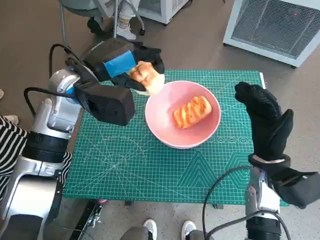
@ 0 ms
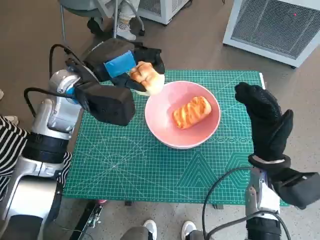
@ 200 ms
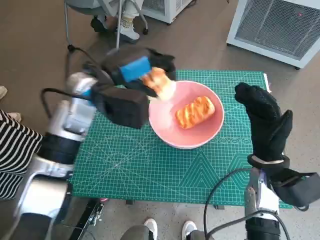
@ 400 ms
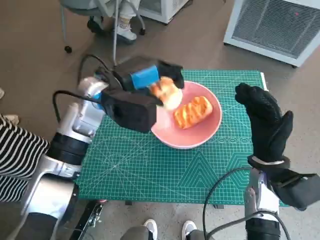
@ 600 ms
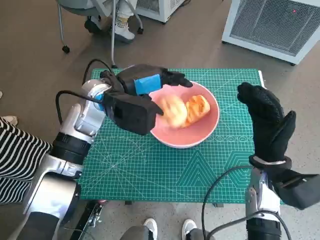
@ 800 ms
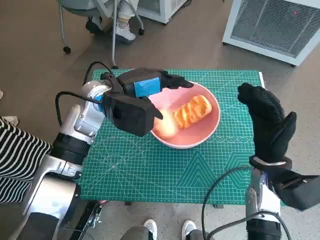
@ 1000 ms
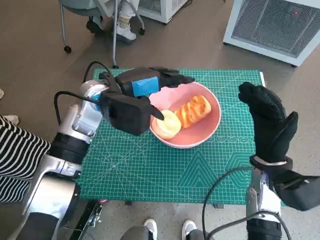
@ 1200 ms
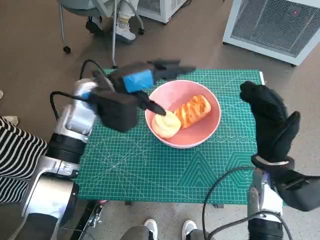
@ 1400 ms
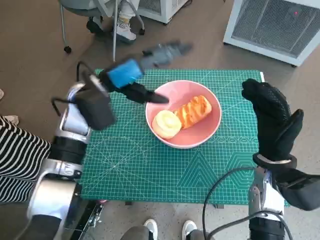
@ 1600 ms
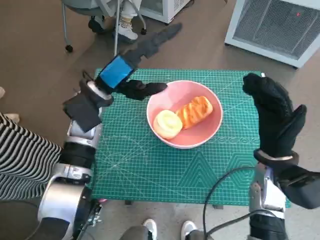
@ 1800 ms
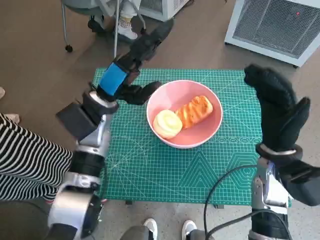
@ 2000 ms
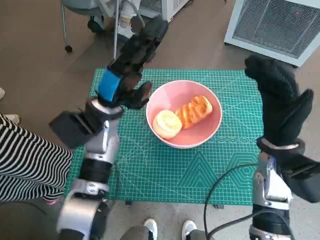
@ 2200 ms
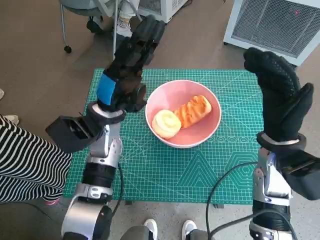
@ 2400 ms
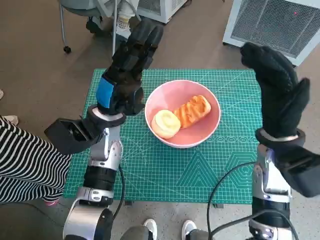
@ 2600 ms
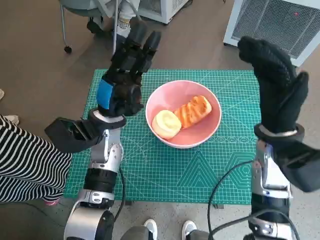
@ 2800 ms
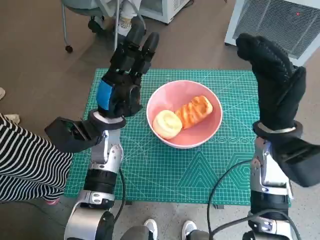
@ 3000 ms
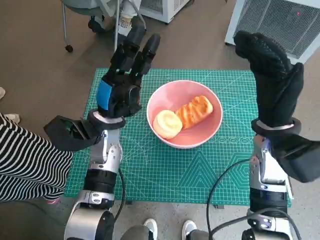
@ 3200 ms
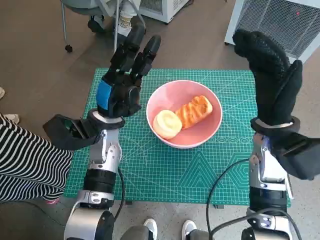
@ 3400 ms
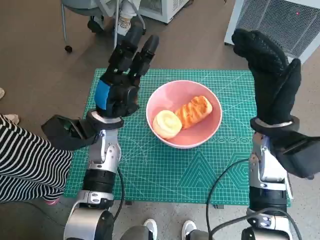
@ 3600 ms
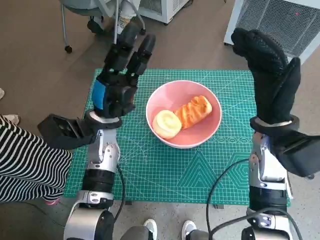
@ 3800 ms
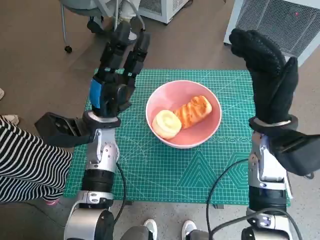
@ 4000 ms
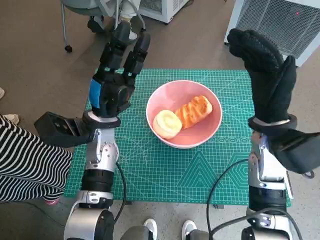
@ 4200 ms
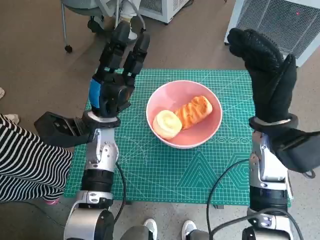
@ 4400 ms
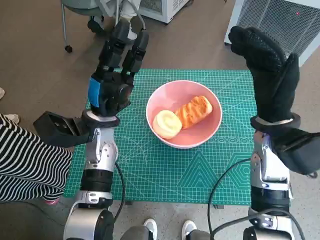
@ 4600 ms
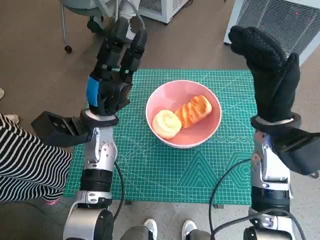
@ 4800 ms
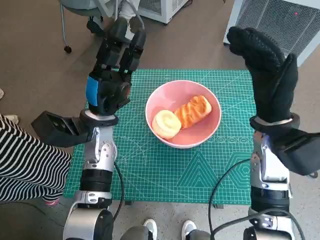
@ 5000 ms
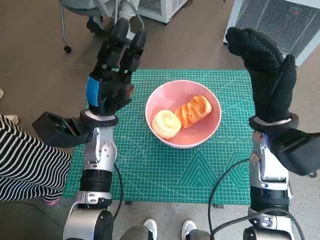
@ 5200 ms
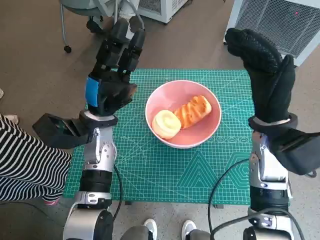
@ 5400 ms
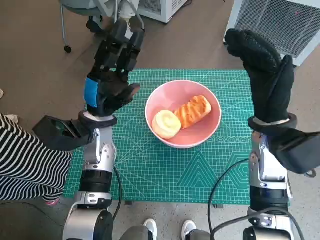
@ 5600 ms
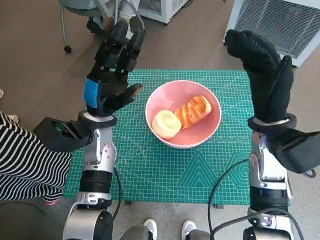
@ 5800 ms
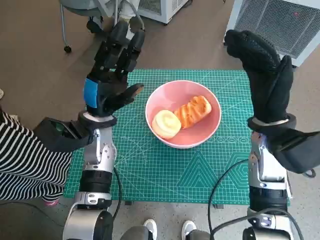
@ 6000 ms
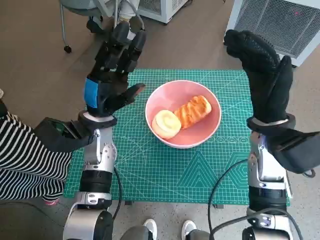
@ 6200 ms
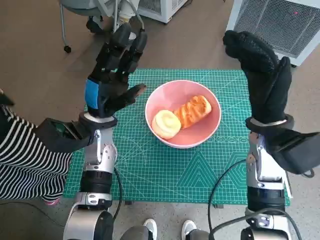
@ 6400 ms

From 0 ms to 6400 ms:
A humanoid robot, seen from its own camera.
Task of the whole recording: Push the bowl into the center of the table and put the bread into the bowl.
From 1600 ms to 3200 ms: The left hand travels downward by roughly 10 cm; the right hand goes about 5 cm upward.
From 3200 ms to 6400 ms: The hands move only a little.

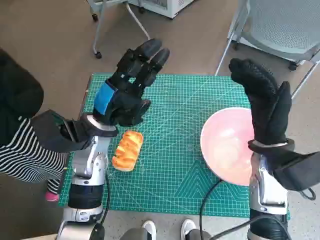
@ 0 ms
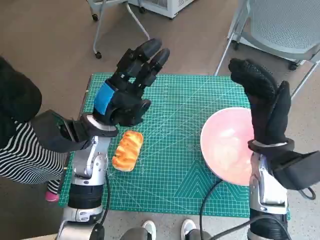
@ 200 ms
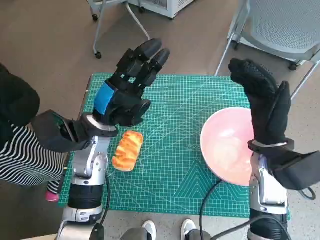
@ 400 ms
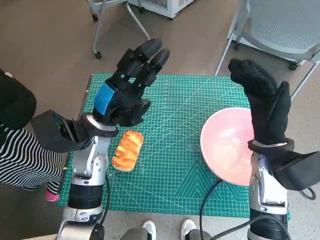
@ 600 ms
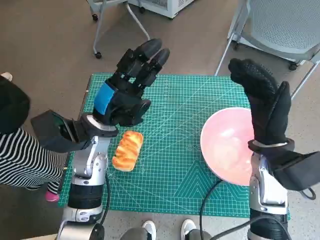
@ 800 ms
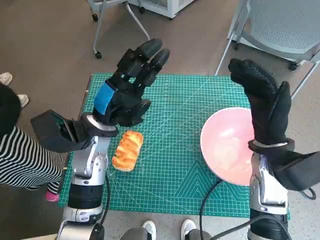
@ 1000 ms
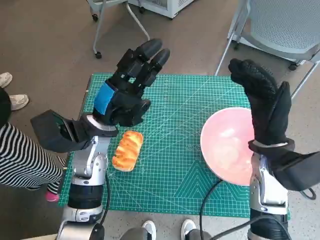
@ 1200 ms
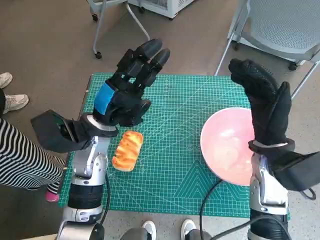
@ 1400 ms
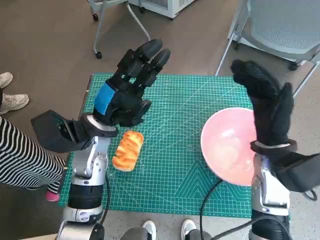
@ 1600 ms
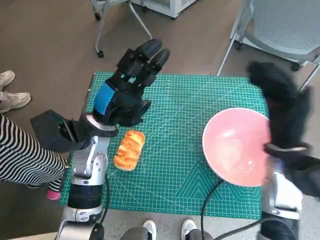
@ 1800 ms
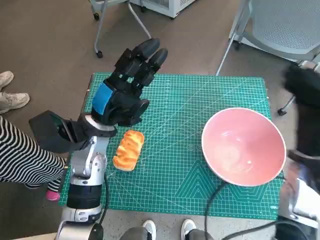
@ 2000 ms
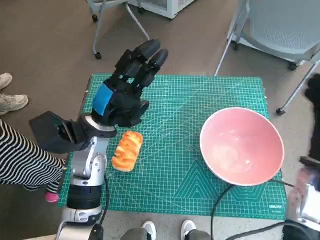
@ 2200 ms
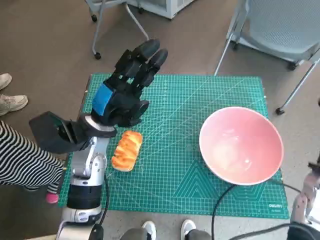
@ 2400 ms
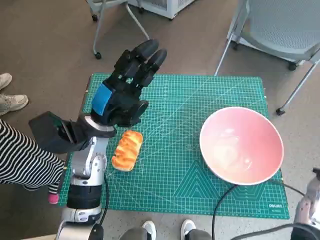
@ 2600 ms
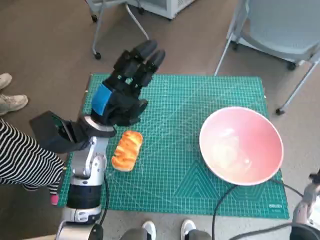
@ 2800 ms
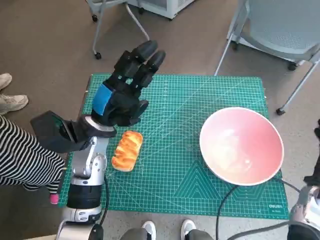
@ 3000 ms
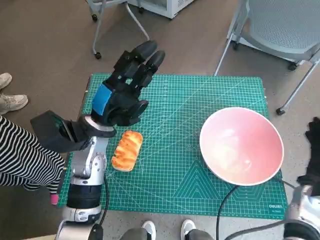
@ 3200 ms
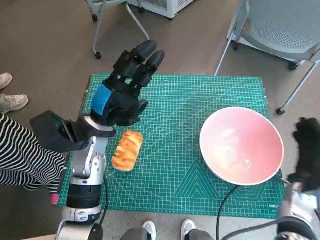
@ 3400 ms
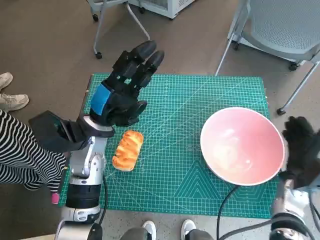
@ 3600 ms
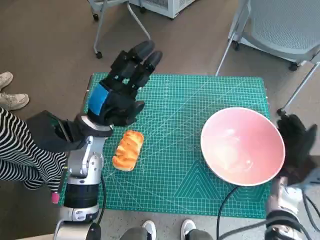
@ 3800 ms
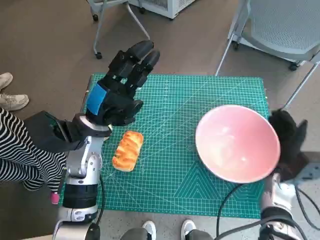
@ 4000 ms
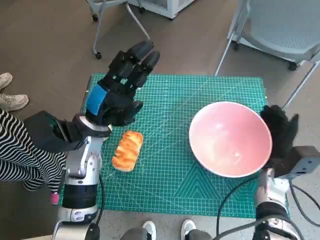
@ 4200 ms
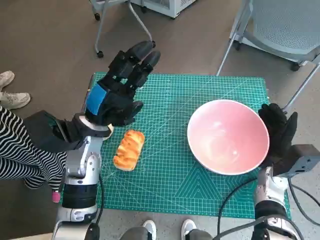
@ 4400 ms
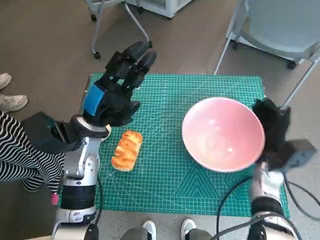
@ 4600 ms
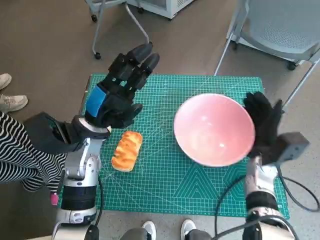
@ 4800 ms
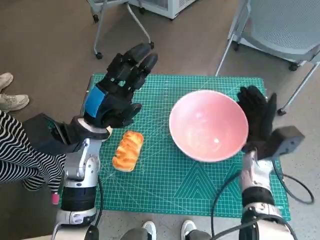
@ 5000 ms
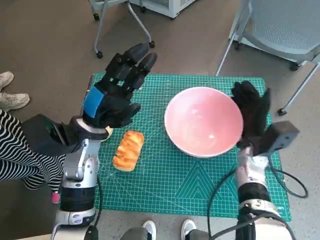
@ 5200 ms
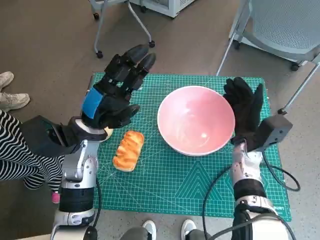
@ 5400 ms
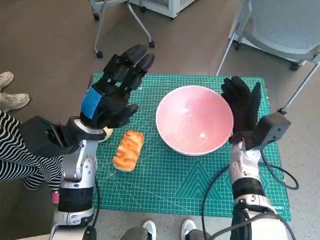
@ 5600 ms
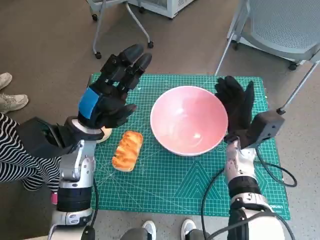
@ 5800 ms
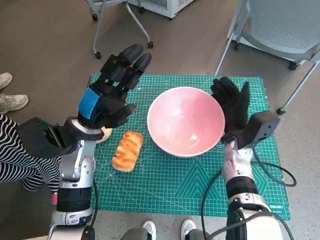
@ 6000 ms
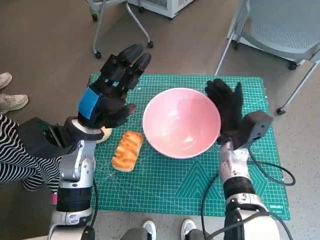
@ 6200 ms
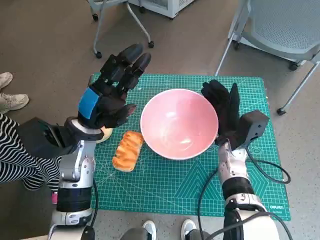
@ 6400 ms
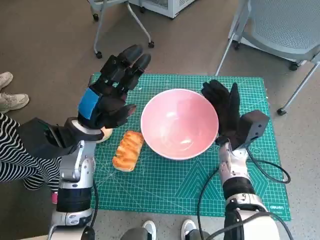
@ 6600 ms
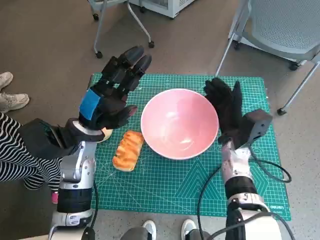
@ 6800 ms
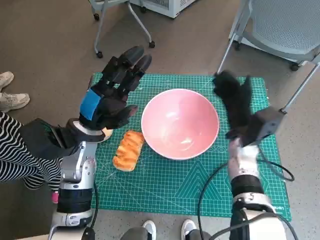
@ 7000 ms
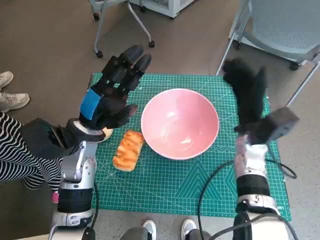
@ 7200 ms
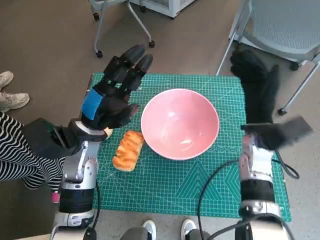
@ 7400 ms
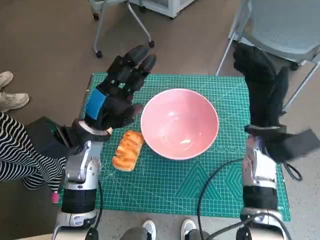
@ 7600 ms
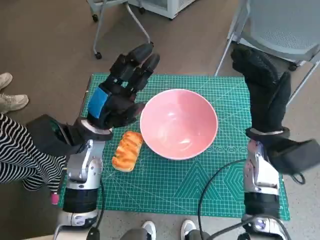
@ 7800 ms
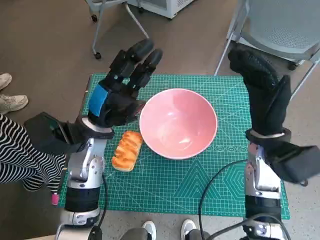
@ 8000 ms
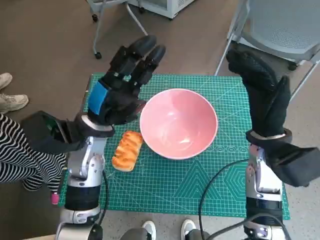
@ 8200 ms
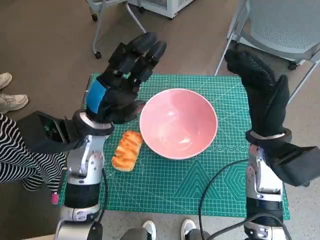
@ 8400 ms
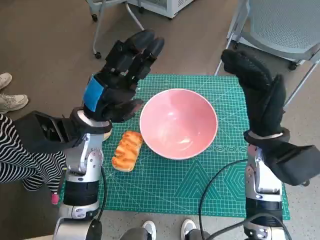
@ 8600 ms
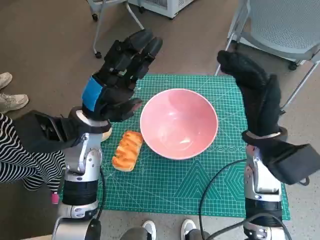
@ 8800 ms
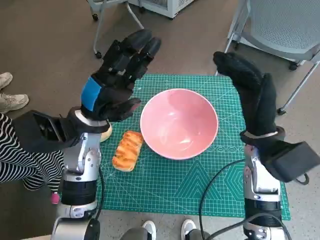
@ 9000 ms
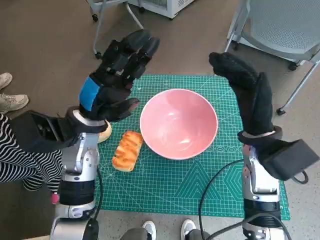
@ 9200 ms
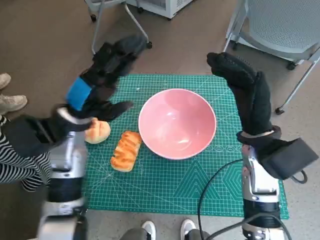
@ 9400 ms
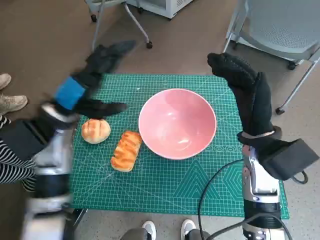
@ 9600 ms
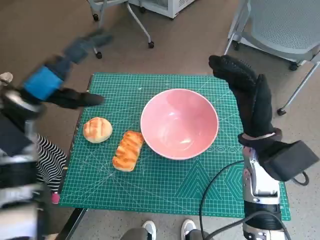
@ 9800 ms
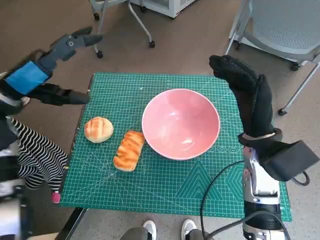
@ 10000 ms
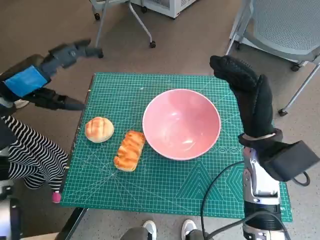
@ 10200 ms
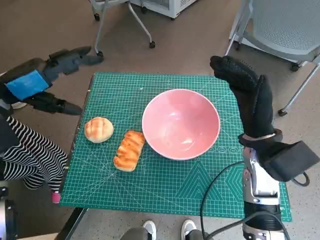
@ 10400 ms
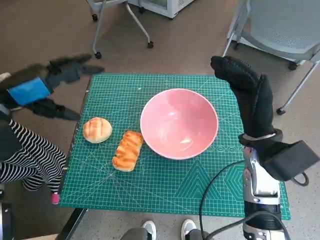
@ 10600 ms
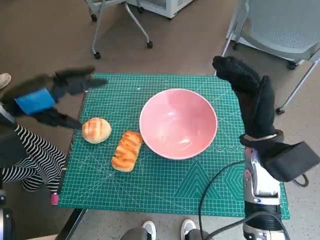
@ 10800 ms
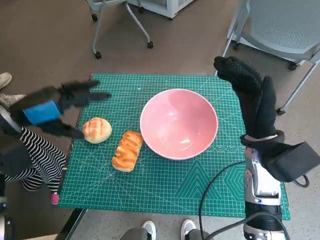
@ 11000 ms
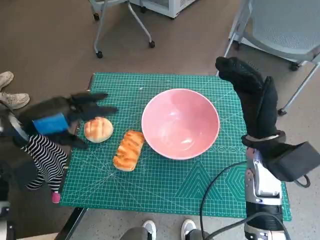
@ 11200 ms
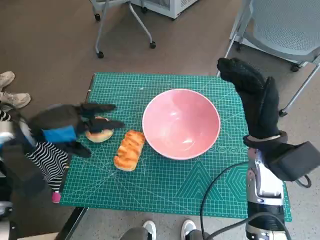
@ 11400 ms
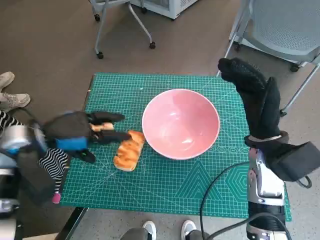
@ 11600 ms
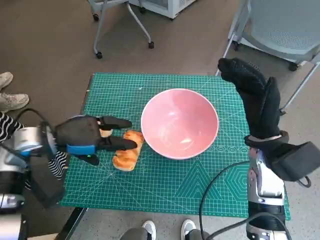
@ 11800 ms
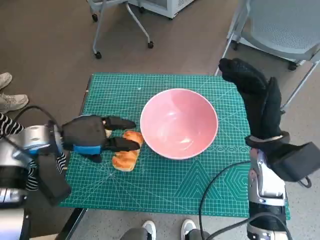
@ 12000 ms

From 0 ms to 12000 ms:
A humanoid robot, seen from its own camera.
Task of the whole recording: Push the bowl into the center of the table and put the bread into the bowl.
Step, from 0 ms to 6800 ms: Move the pink bowl to the center of table with right hand.
From 1600 ms to 3000 ms: The right hand moves to the right and downward, about 15 cm.
From 3000 ms to 4400 ms: The right hand heads to the left, covering roughly 5 cm.
From 4400 ms to 6000 ms: The right hand travels to the left by roughly 10 cm.
From 6000 ms to 7600 ms: The right hand moves upward, some 5 cm.
From 9000 ms to 10400 ms: The left hand moves to the left and upward, about 15 cm.
From 10400 ms to 12000 ms: The left hand is displaced downward by roughly 10 cm.

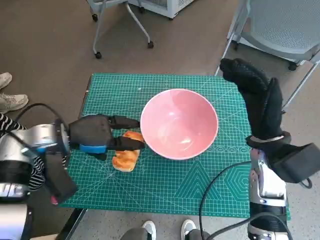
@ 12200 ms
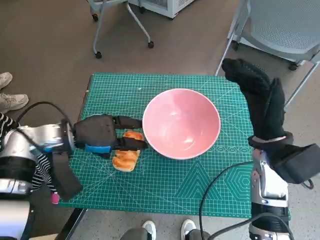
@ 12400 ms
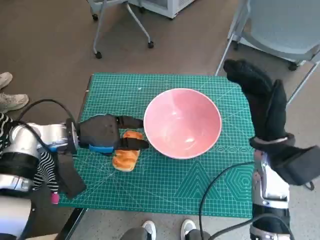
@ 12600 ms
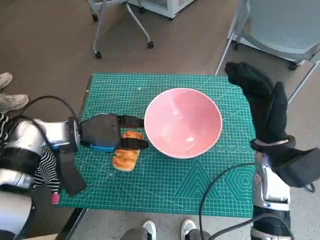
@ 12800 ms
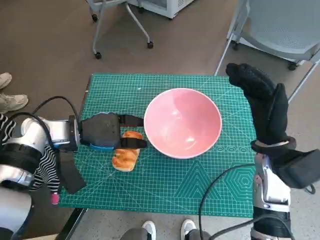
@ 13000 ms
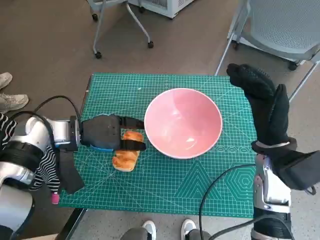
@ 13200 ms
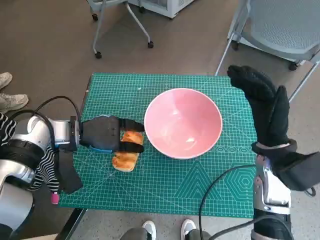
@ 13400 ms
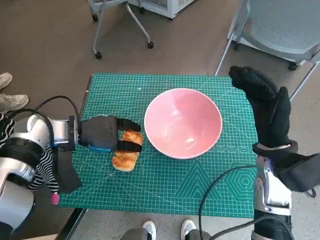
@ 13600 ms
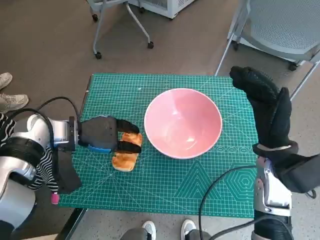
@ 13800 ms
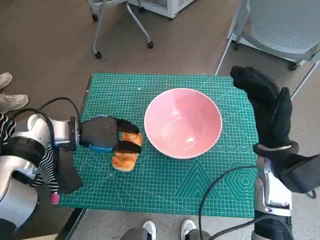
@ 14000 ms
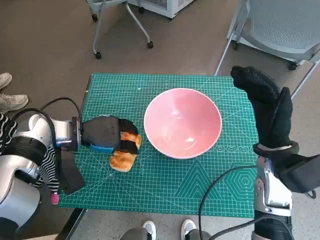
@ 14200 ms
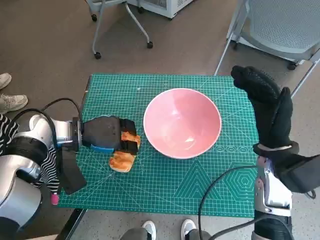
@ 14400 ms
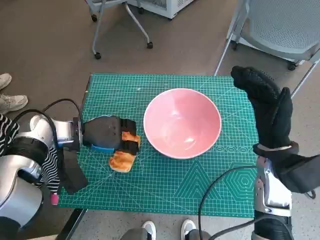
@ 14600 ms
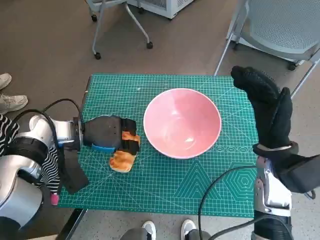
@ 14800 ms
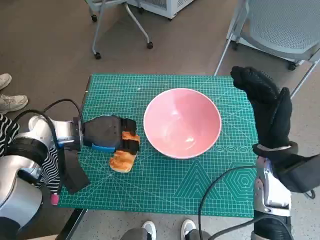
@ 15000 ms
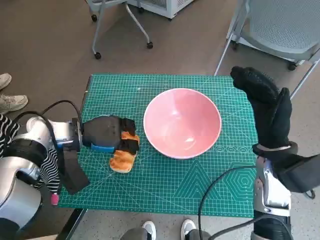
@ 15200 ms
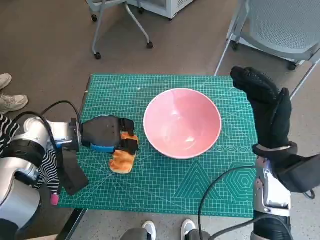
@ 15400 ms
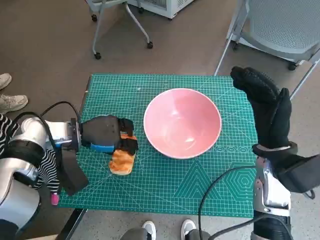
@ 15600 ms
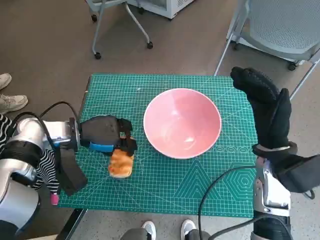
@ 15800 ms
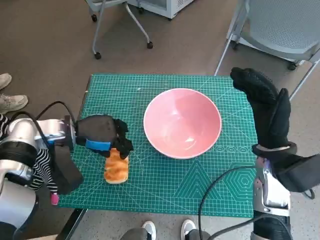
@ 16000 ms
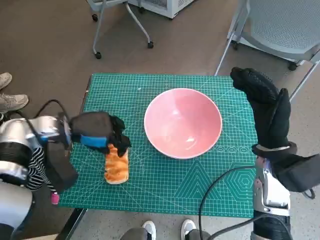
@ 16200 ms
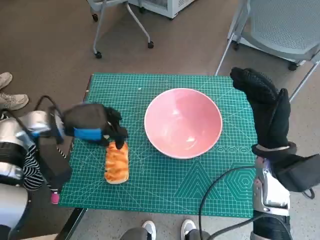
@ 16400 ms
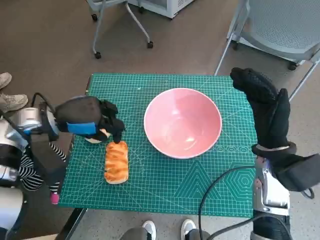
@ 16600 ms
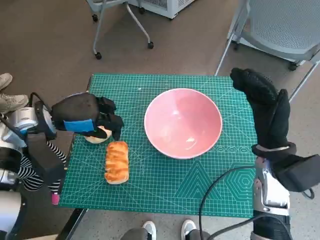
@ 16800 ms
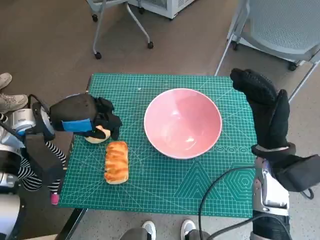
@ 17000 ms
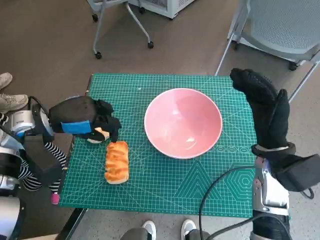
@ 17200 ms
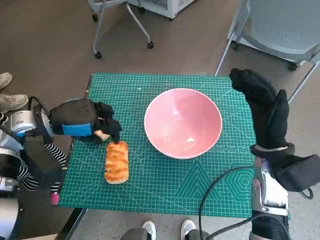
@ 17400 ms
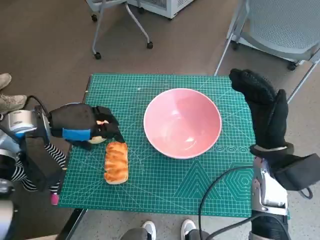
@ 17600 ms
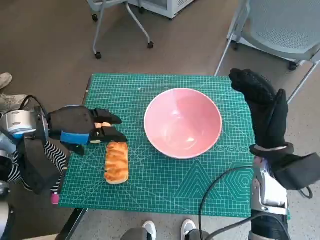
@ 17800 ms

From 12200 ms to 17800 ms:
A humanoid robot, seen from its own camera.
Task of the whole recording: Push the bowl into the center of the table and put the bread into the bowl.
Step, from 12200 ms to 15200 ms: Grasp the long bread with left hand.
From 12200 ms to 17800 ms: There are only small adjustments of the hands.
